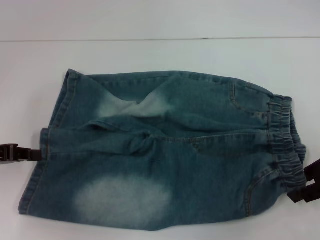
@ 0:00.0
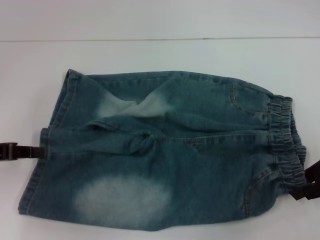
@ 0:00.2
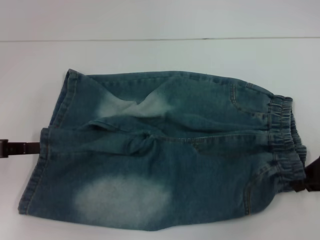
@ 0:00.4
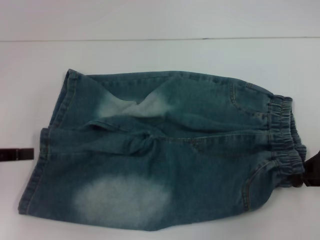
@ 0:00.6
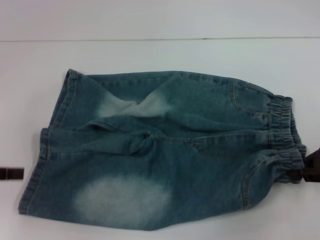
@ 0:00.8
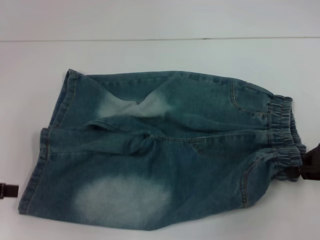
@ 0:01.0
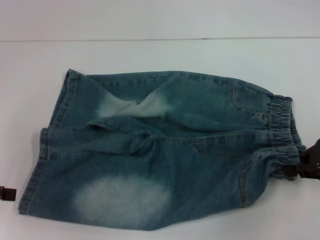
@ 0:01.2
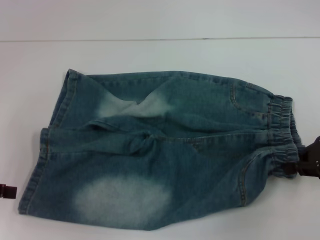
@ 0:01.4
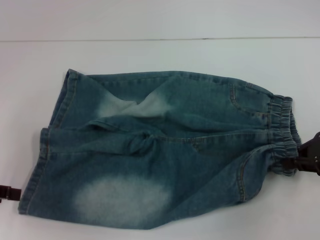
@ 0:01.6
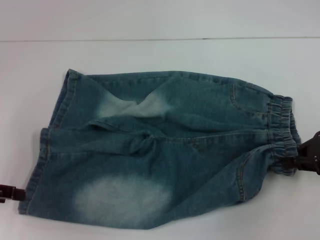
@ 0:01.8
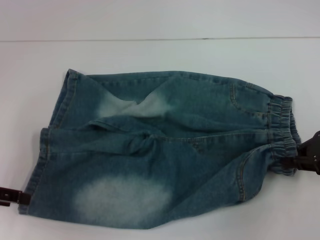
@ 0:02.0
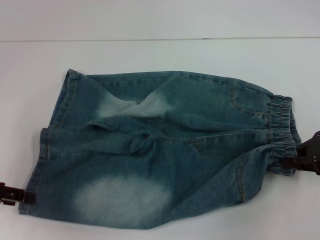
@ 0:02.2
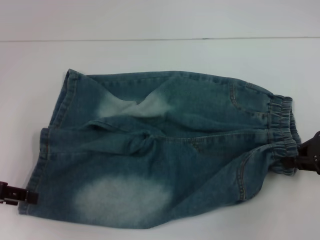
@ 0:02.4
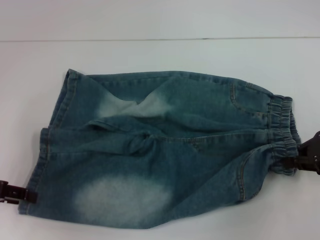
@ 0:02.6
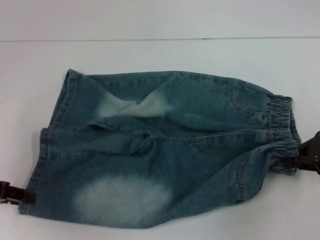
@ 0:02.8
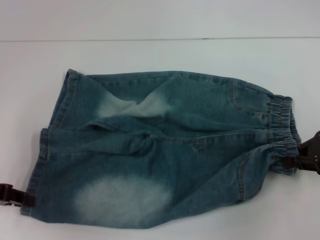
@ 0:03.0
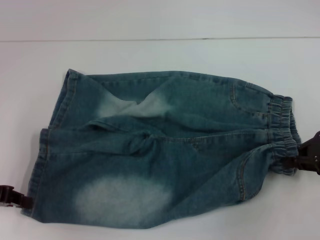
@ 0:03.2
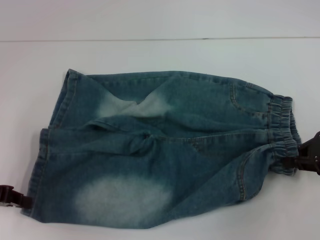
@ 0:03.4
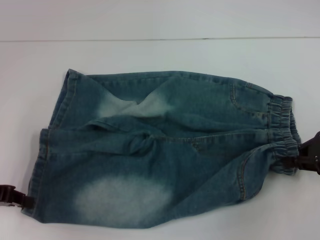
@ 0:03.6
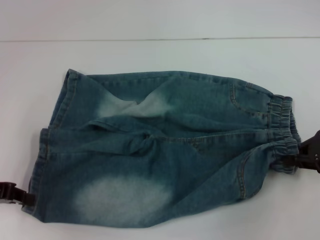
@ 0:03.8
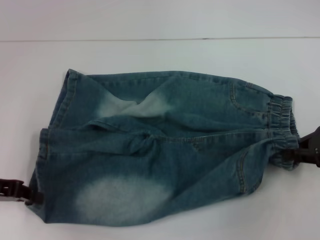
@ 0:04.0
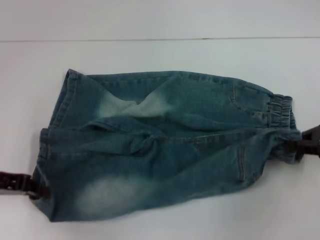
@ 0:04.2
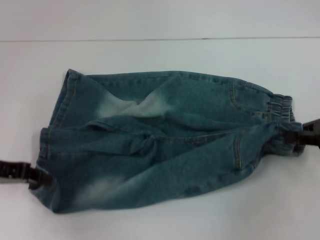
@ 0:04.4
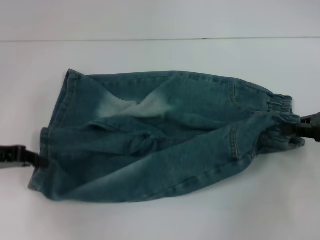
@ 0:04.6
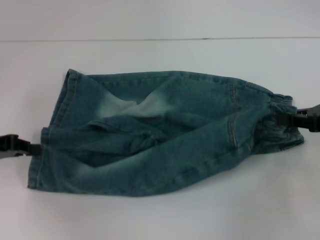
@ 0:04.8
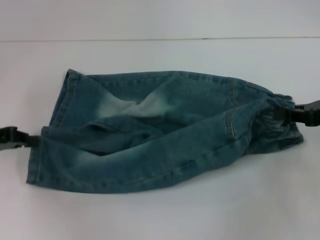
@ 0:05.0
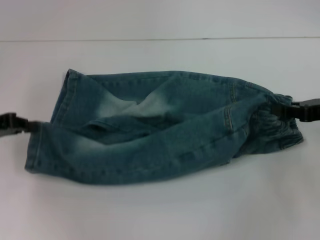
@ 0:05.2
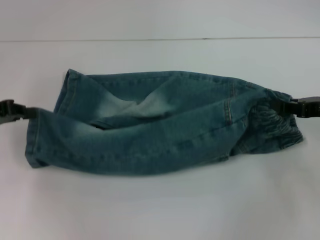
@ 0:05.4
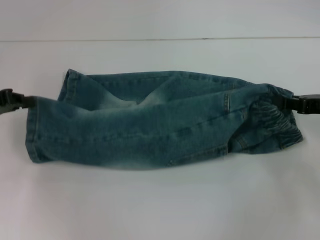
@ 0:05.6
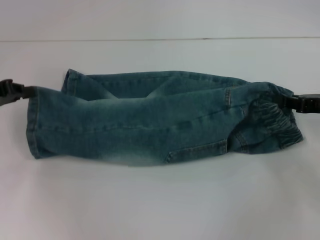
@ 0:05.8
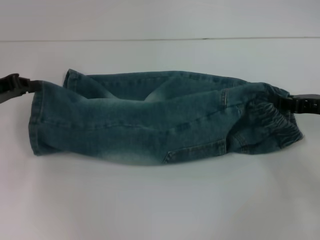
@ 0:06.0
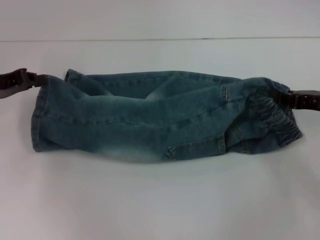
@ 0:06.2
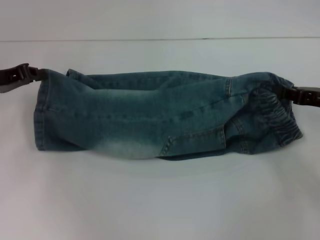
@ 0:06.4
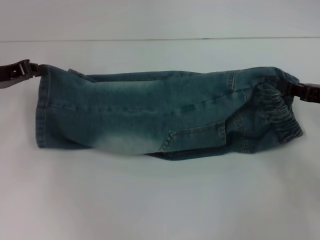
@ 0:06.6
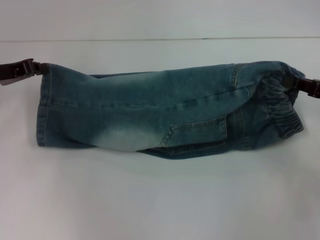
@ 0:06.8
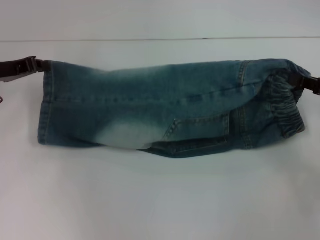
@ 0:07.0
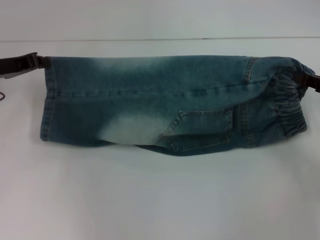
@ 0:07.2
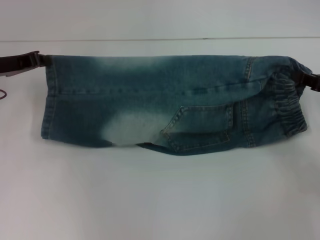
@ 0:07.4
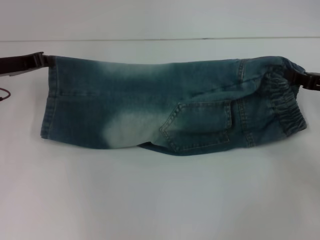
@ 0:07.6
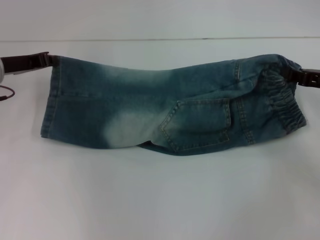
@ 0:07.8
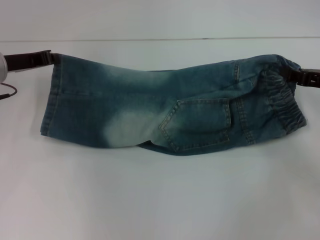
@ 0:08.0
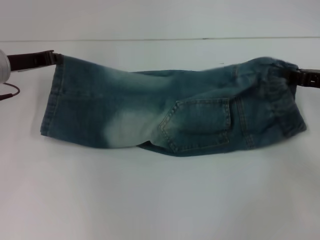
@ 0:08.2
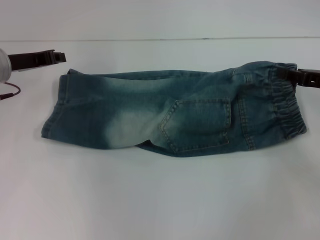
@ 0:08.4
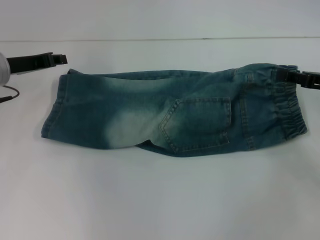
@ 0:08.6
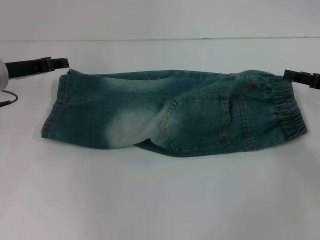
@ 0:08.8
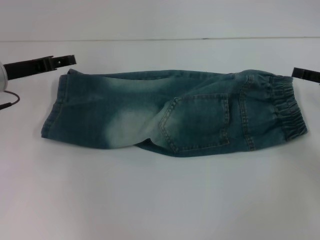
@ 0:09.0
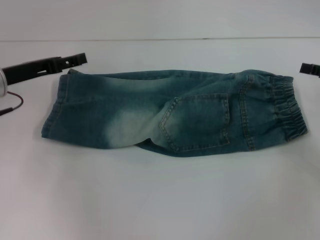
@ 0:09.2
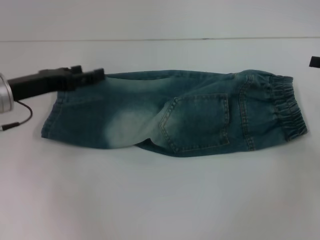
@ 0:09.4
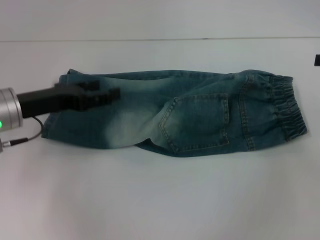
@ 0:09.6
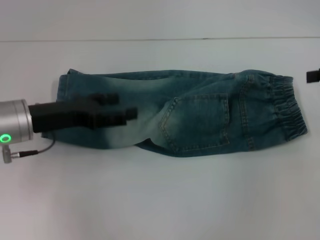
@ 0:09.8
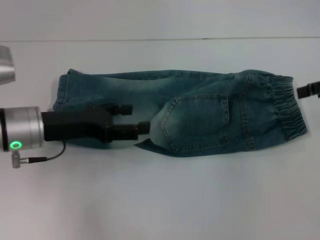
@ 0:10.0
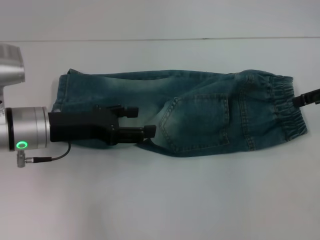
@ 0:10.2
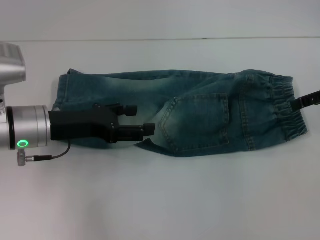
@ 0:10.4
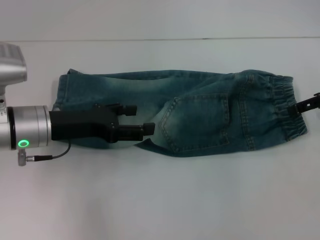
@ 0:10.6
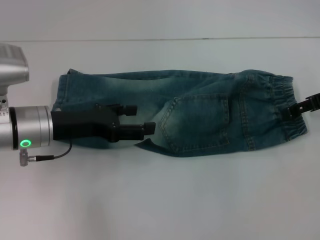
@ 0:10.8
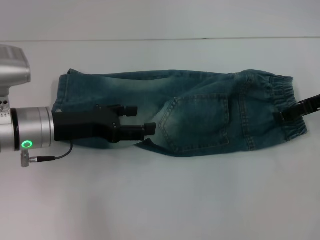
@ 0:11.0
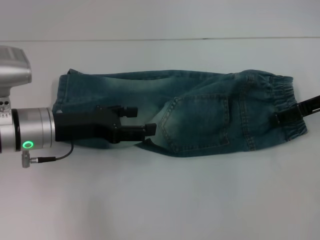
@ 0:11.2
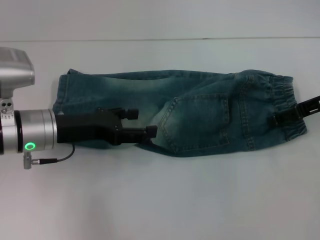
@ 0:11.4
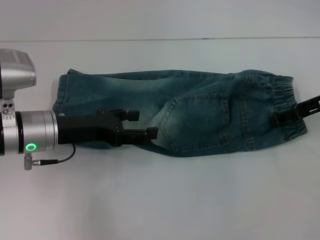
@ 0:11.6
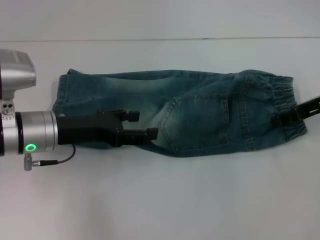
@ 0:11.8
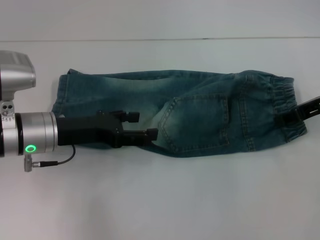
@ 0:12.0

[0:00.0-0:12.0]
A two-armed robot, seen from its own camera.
Step, 0:01.6 to 0:03.8: Grab the lower left pant leg with your left hand.
Step, 0:04.0 to 0:08.4: Fold upward with your left hand.
0:00.0 to 0:01.6: The right gripper closes up, while the left gripper opens its fingers.
0:01.6 to 0:03.0: The left gripper closes up.
0:03.0 to 0:04.4: The left gripper closes up.
0:04.4 to 0:06.0: The left gripper shifts approximately 5 cm forward. The right gripper ends up roughly 5 cm from where it was.
0:06.0 to 0:07.6: The left gripper shifts by approximately 5 cm.
0:07.6 to 0:09.0: The right gripper opens. Meanwhile the left gripper opens its fingers.
0:09.0 to 0:10.4: The right gripper goes about 10 cm upward, while the left gripper moves backward and to the right, some 10 cm.
0:10.4 to 0:12.0: The right gripper ends up roughly 5 cm from where it was, and closes up.

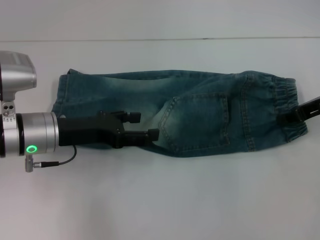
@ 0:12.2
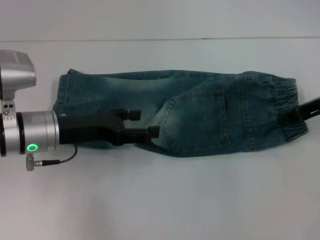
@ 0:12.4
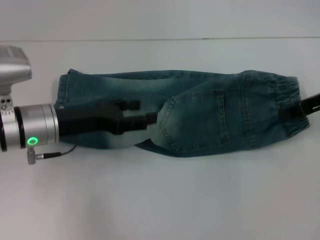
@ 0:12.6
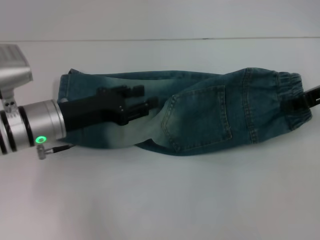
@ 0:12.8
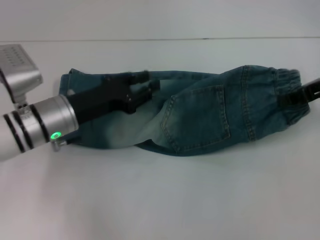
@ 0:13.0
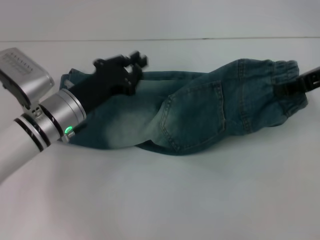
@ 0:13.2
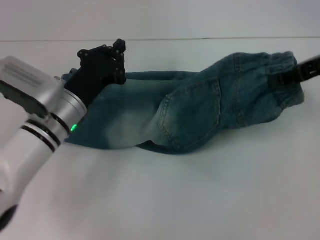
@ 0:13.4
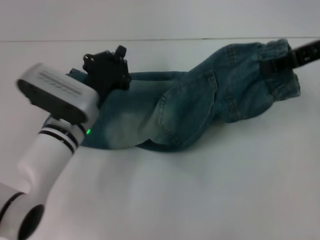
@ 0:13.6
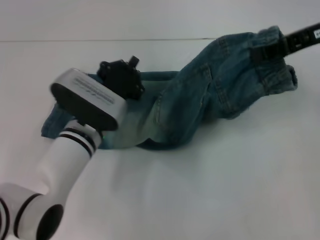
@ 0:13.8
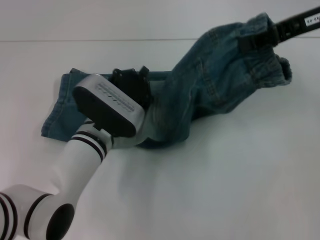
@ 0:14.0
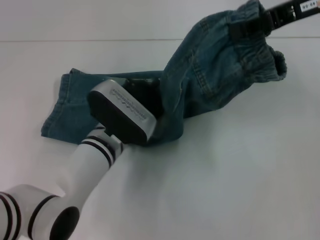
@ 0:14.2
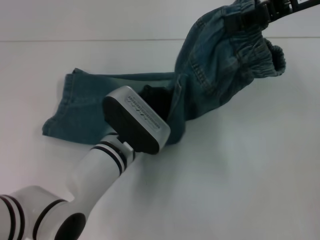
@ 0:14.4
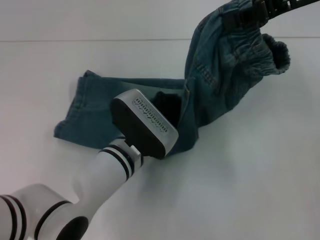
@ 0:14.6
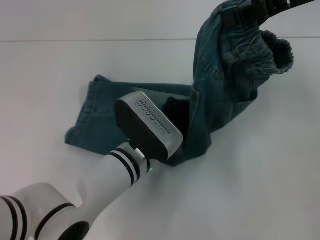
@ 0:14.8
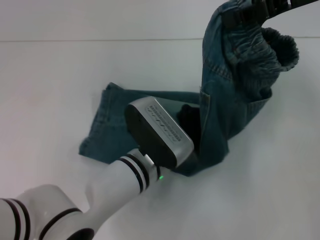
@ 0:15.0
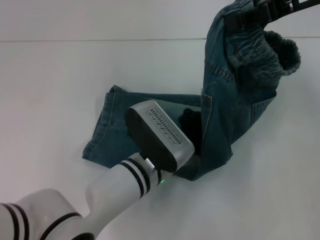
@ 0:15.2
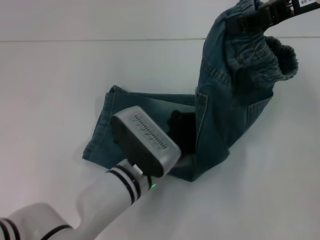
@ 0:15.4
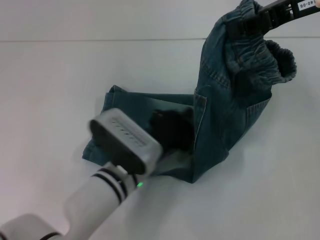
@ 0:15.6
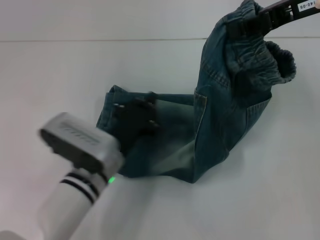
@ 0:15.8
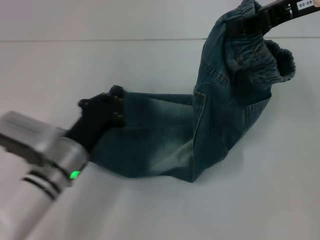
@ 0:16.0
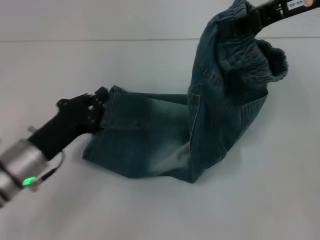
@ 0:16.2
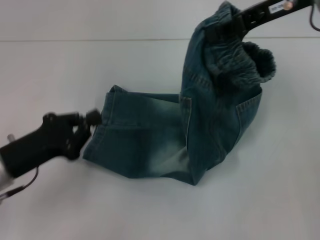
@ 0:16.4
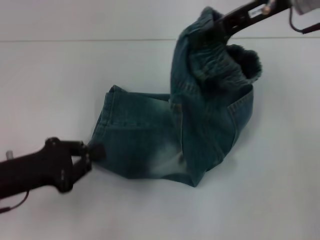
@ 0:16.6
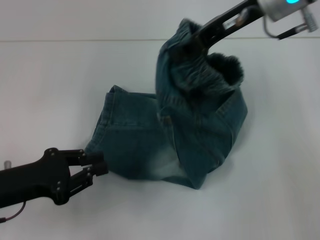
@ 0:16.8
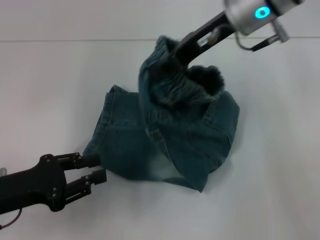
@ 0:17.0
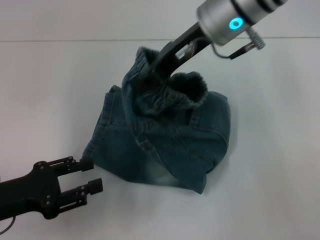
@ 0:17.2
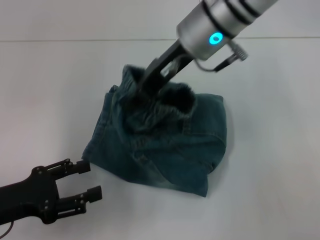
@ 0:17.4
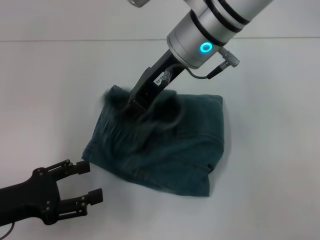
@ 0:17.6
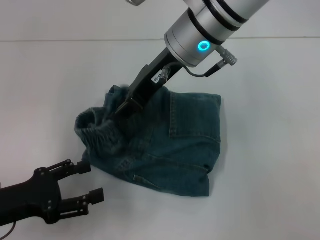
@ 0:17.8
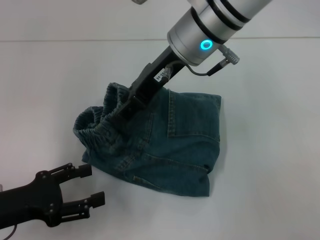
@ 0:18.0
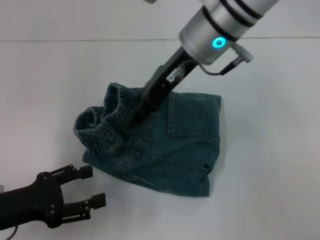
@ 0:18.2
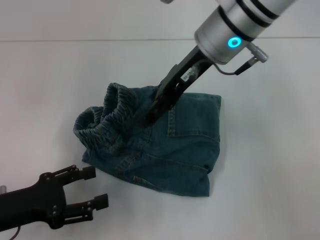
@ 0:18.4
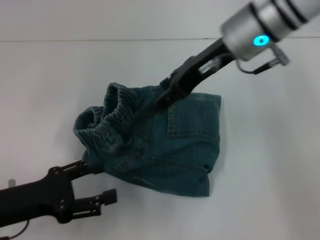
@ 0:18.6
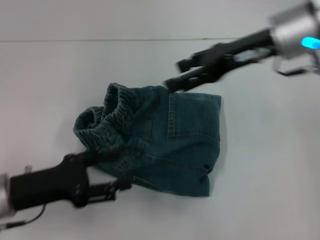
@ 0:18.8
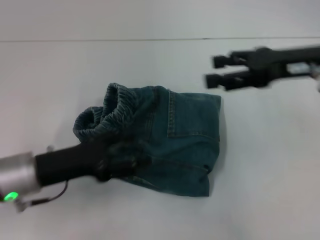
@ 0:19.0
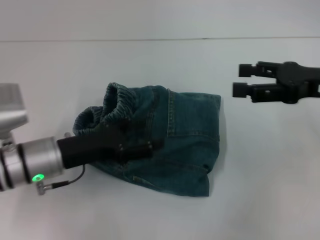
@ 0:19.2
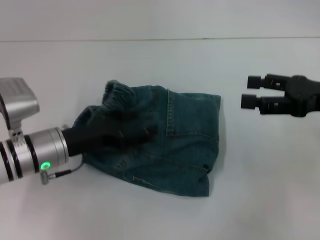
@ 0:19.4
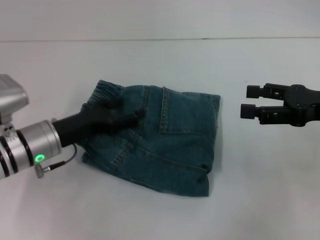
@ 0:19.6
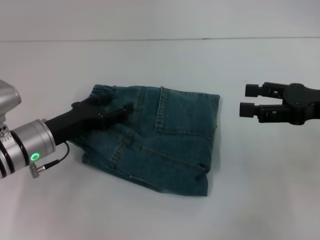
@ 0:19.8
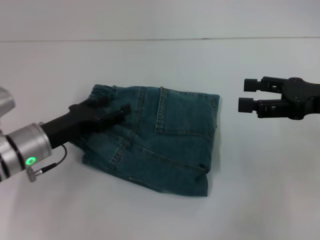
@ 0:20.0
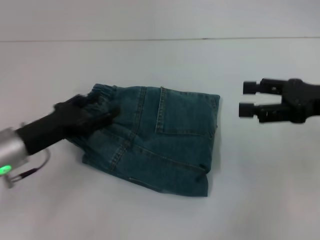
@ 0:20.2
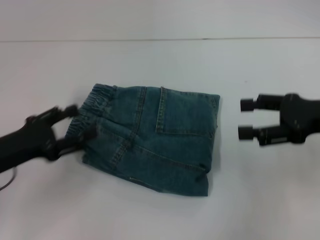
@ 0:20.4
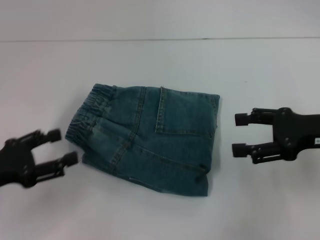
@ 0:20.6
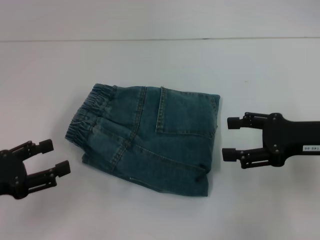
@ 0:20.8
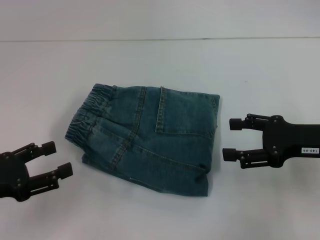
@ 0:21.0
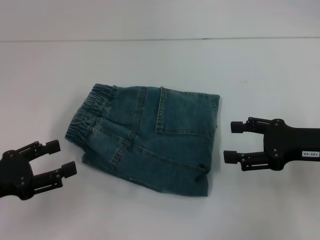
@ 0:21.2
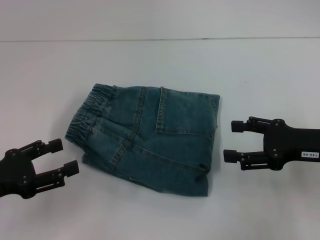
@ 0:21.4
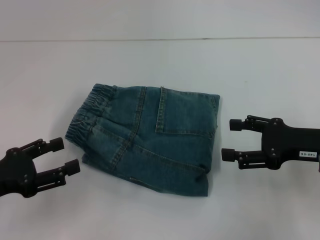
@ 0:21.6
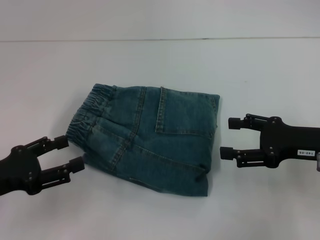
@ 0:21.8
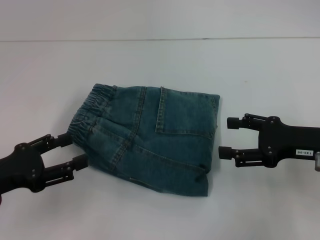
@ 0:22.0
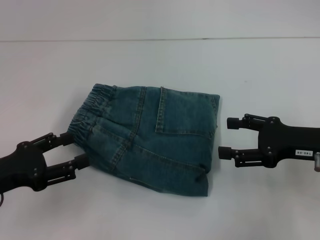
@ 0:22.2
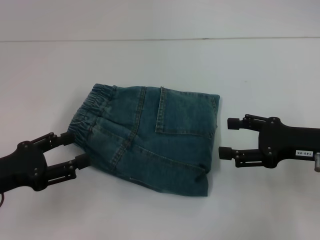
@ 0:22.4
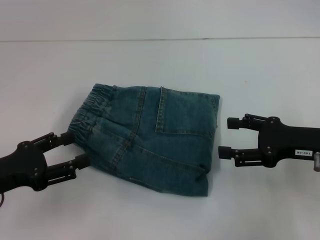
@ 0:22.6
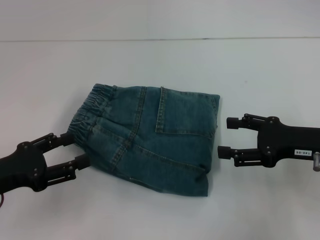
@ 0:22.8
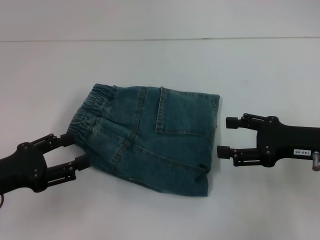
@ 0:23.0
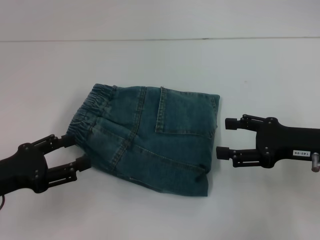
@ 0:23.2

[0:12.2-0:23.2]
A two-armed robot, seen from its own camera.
Step, 0:12.8 to 0:15.2: Press the middle of the pants with your left hand.
Step, 0:15.6 to 0:18.0: Fold to the left with your right hand.
Step, 0:18.2 to 0:19.8: Adjust the pants with your left hand.
0:12.2 to 0:13.8: The right gripper moves upward, roughly 10 cm; the left gripper heads to the right and downward, covering roughly 10 cm, and closes up.
0:13.8 to 0:15.4: The left gripper is displaced to the right and backward by roughly 10 cm.
0:15.4 to 0:17.0: The right gripper goes some 10 cm to the left, while the left gripper goes some 25 cm to the left.
0:17.0 to 0:18.4: The right gripper opens up, while the left gripper opens its fingers.
0:18.4 to 0:20.0: The right gripper goes approximately 25 cm to the right and backward; the left gripper shifts roughly 10 cm forward and to the right.
0:20.0 to 0:21.6: The left gripper shifts about 15 cm backward and to the left. The right gripper moves downward, approximately 5 cm.
0:21.6 to 0:23.2: There are only small adjustments of the grippers.
